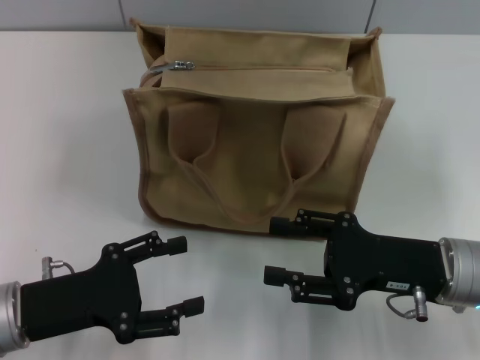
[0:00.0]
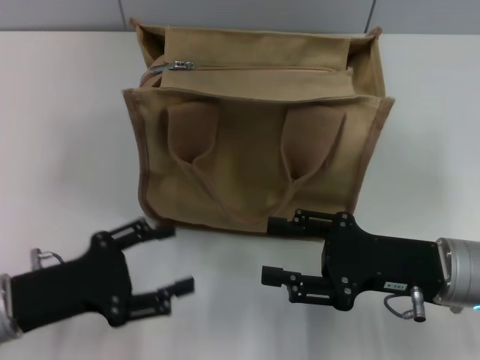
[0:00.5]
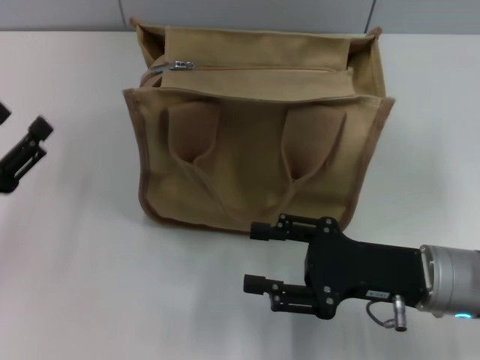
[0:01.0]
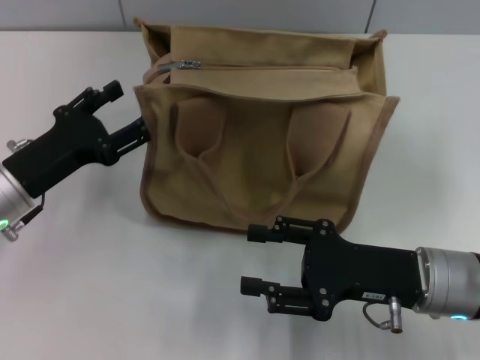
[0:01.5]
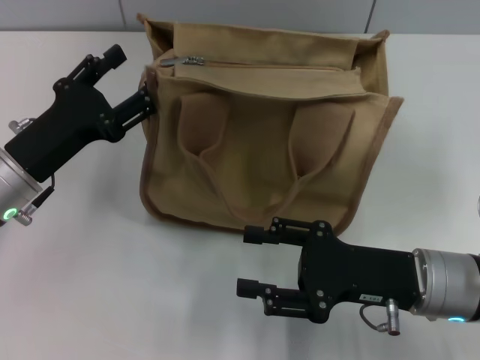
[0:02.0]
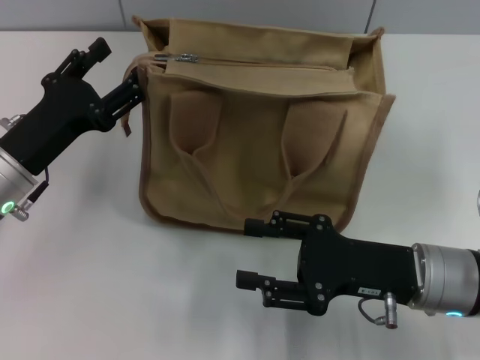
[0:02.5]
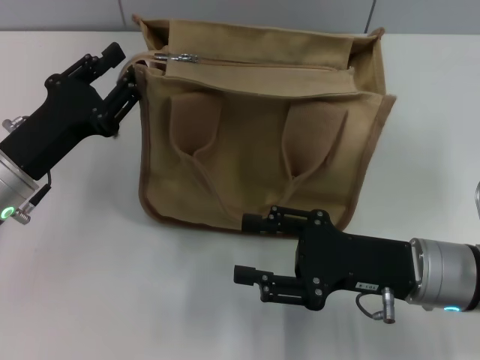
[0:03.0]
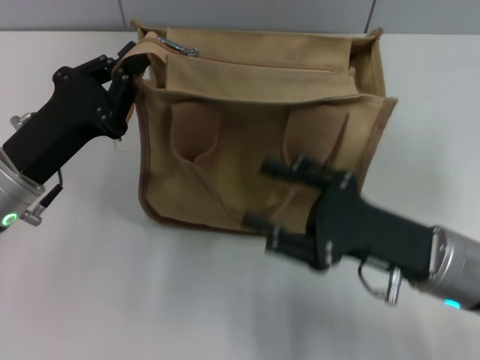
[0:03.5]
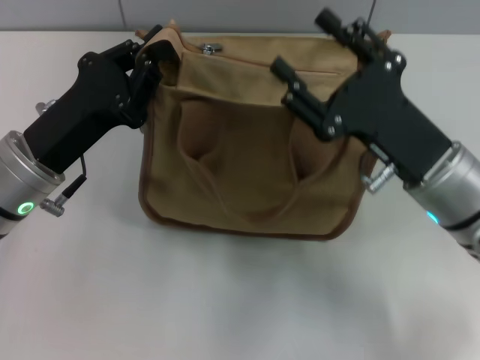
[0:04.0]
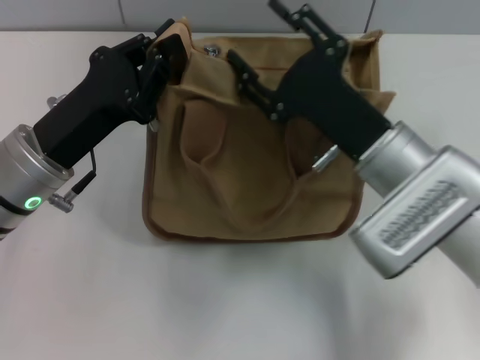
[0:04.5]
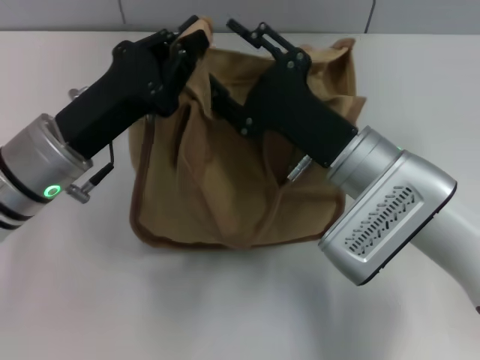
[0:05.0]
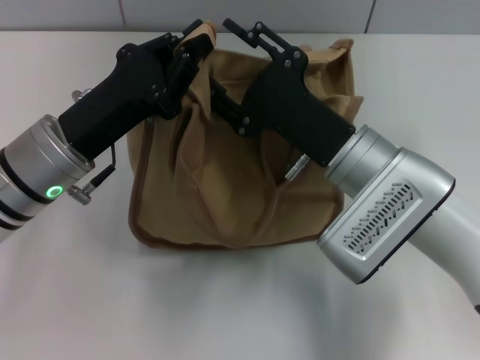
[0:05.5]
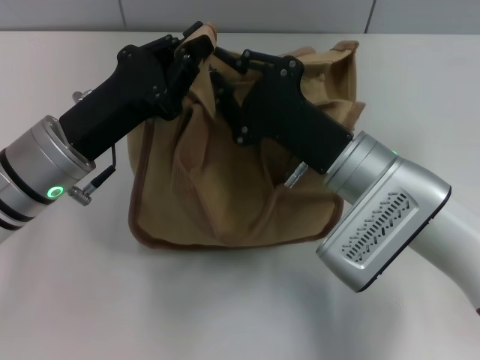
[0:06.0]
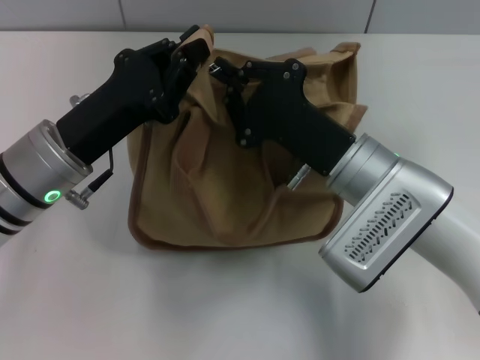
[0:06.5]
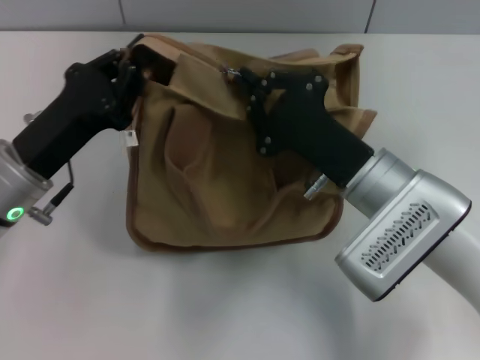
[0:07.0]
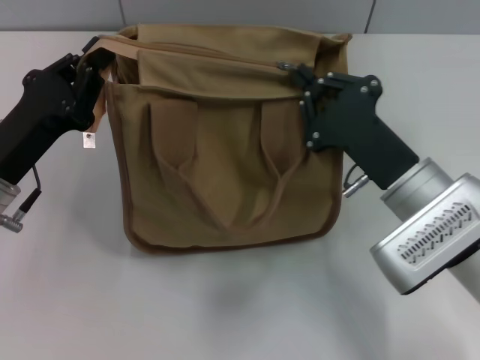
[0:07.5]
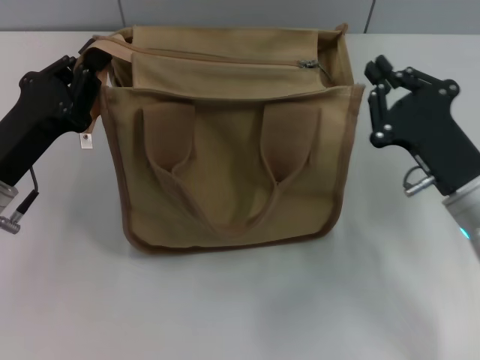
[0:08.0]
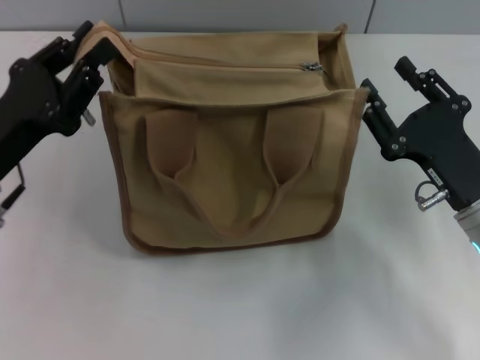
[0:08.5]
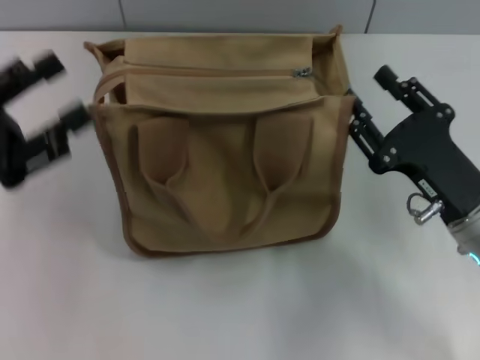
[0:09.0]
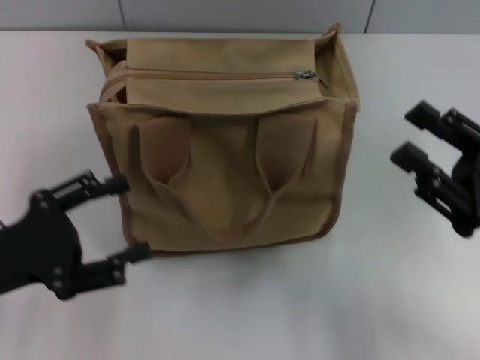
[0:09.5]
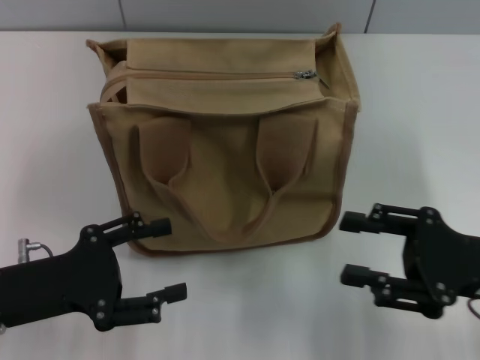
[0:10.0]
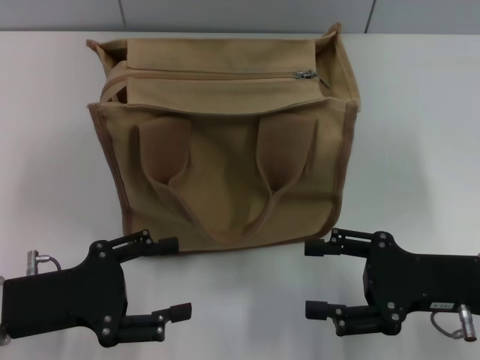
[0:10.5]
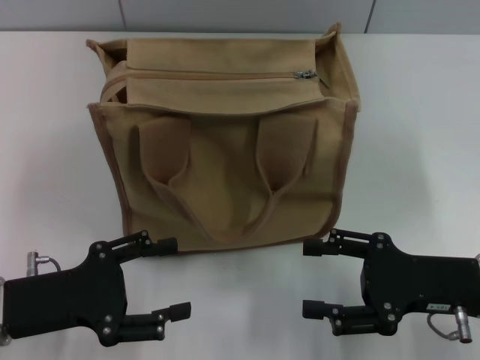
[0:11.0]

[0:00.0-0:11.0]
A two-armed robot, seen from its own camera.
Step, 0:00.0 to 0:07.5: Pull up the zipper with your right hand.
Step, 0:08.0 to 0:08.5: Grab the zipper with your left hand.
0:00.0 to 0:02.0: The left gripper shifts some 10 cm forward.
0:02.0 to 0:03.5: The left gripper closes its fingers.
0:03.5 to 0:05.5: The right gripper travels to the left and forward by approximately 10 cm.
0:05.5 to 0:07.5: The left gripper travels to the left by some 5 cm, while the right gripper shifts approximately 5 cm to the right, and closes up.
0:07.5 to 0:09.0: The right gripper moves to the right, about 5 cm, and opens its fingers. Meanwhile the left gripper shifts about 5 cm to the left, and opens up.
0:09.0 to 0:11.0: The left gripper moves downward, roughly 5 cm, and opens.

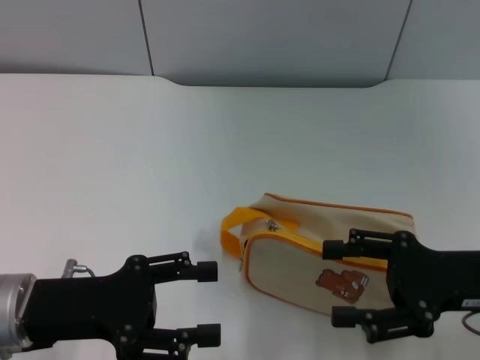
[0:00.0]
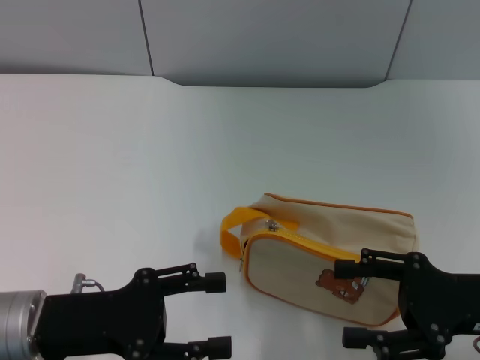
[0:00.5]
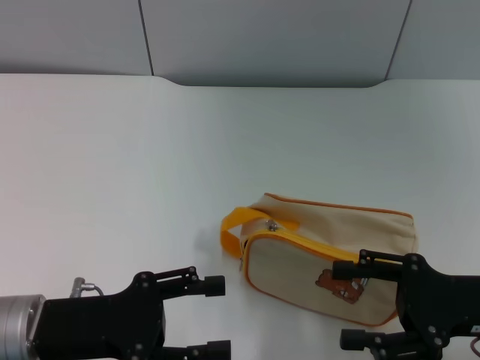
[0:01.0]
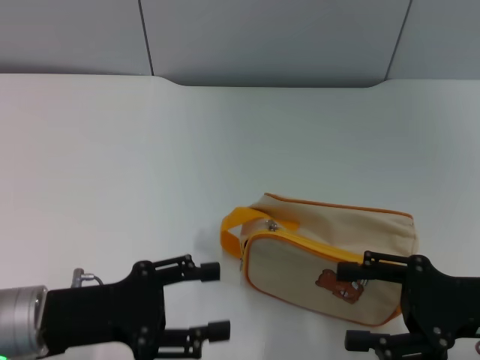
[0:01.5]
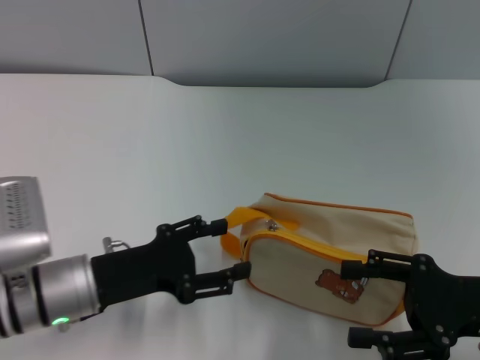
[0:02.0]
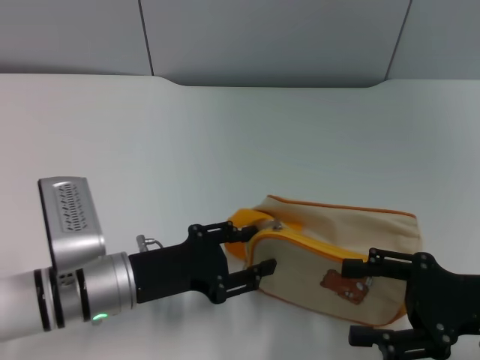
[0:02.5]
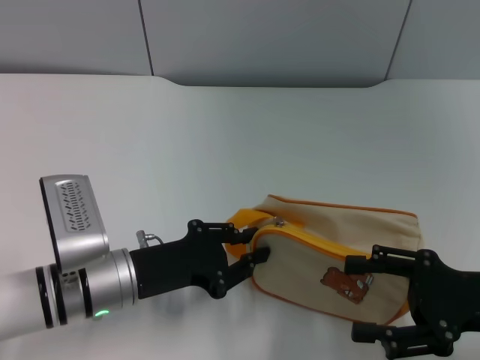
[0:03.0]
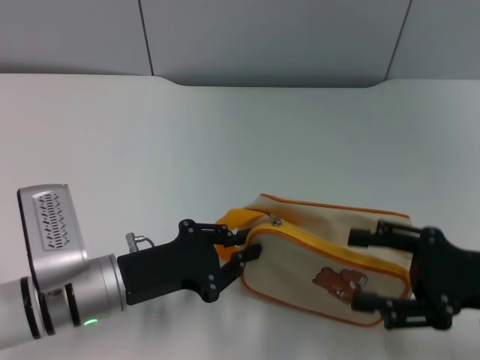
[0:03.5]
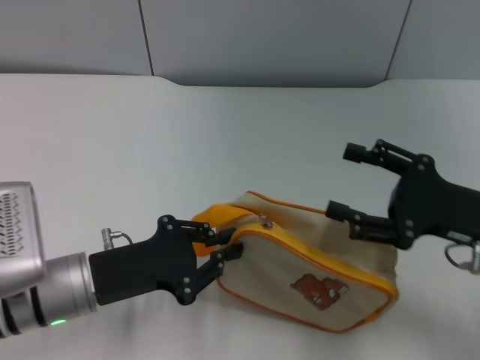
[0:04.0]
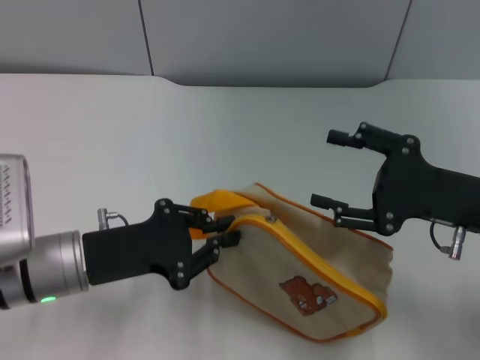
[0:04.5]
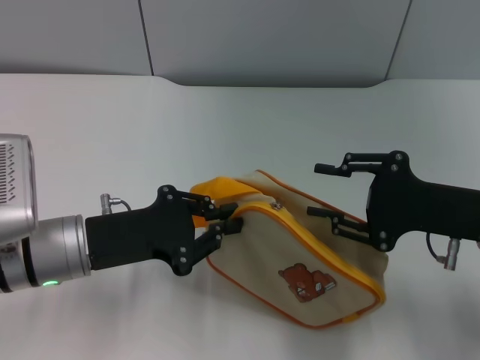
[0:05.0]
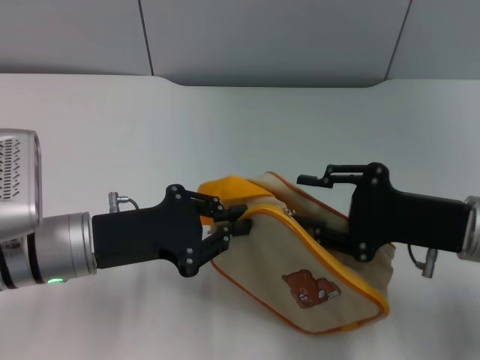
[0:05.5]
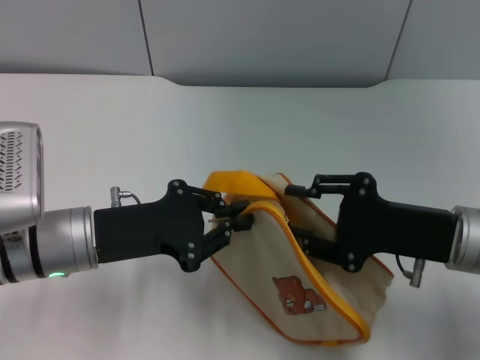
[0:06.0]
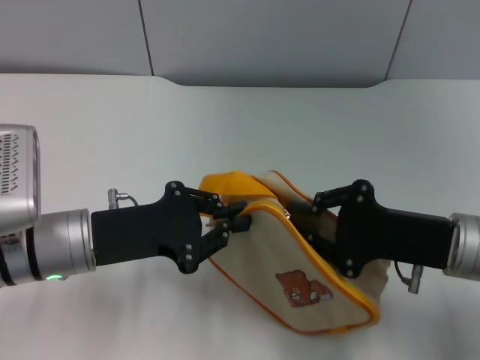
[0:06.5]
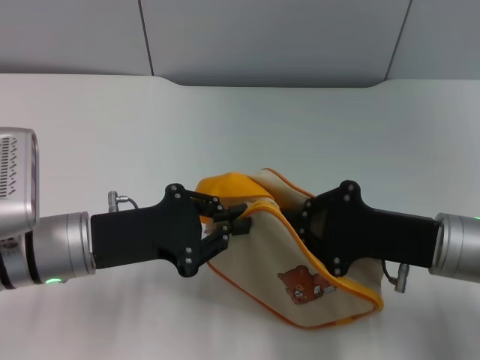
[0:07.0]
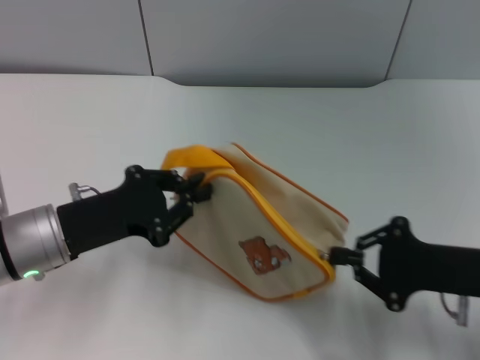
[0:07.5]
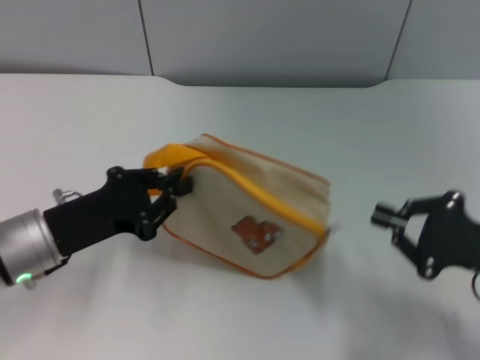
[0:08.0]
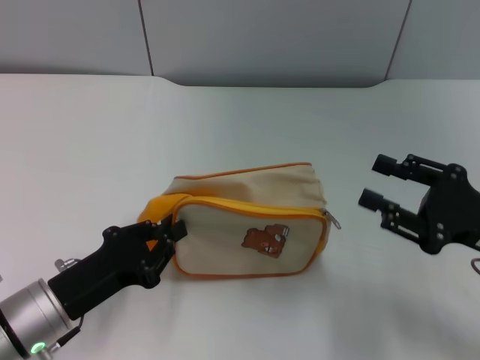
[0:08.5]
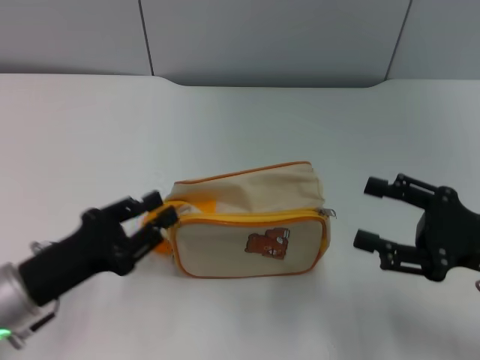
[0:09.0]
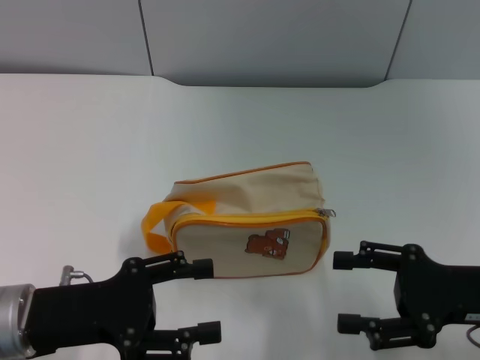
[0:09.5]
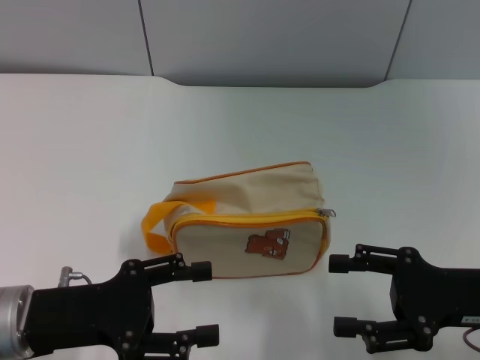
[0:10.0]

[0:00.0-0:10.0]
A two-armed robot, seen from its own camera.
Step, 0:00.0 to 0:04.0: Pick up the bag with left gripper.
Step, 0:04.5 to 0:08.0: Unzip the zipper of bag with right gripper.
Step, 0:08.5 to 0:09.0: Place the bag on the table with left gripper.
0:00.0 to 0:02.0: The left gripper moves approximately 5 cm.
0:02.0 to 0:04.0: The left gripper closes its fingers.
0:04.0 to 0:06.0: The left gripper moves roughly 5 cm, while the right gripper closes.
0:06.0 to 0:08.0: The right gripper heads to the right, covering approximately 5 cm, and closes up.
0:08.0 to 0:10.0: The left gripper moves backward, some 5 cm, and opens up, while the right gripper opens its fingers.
